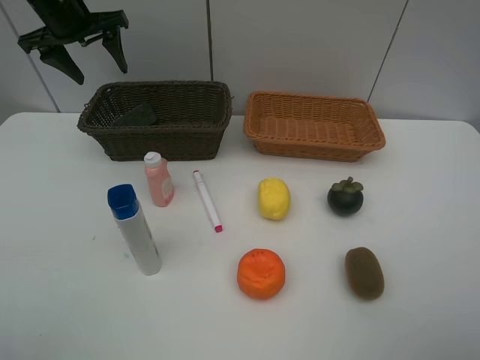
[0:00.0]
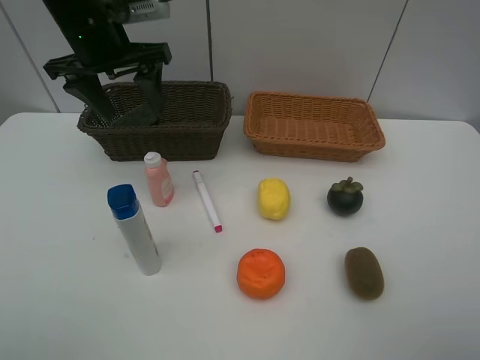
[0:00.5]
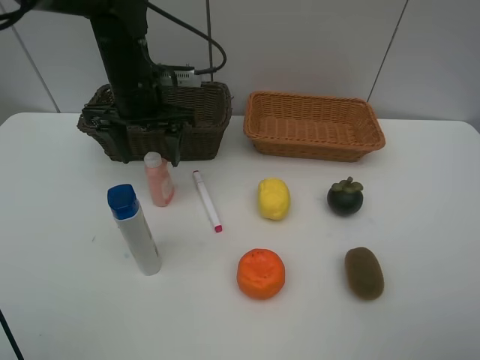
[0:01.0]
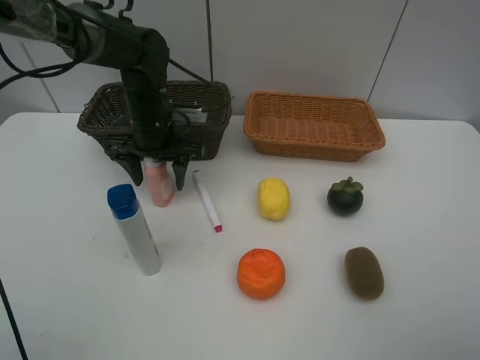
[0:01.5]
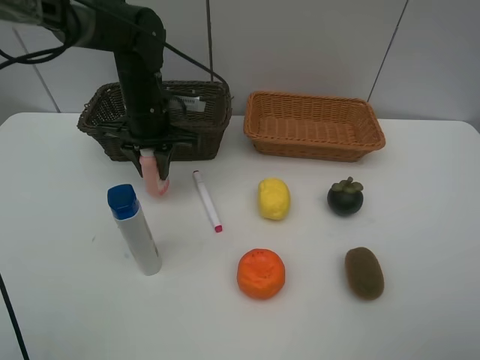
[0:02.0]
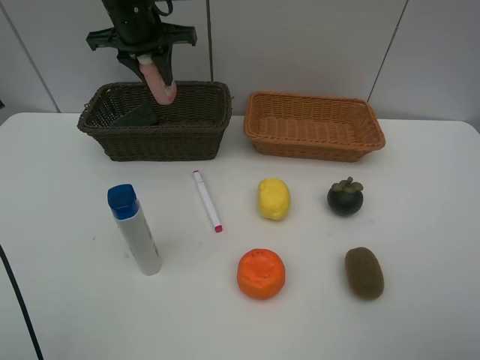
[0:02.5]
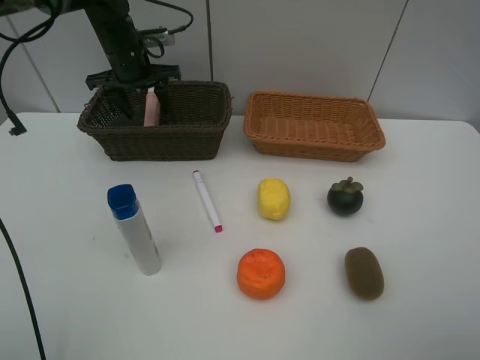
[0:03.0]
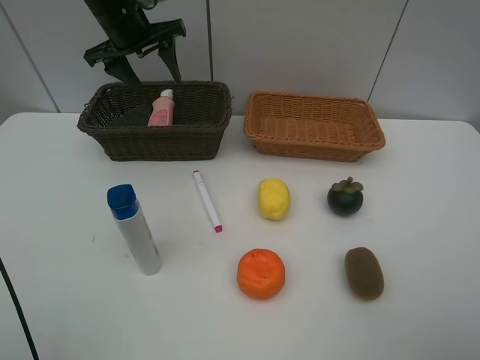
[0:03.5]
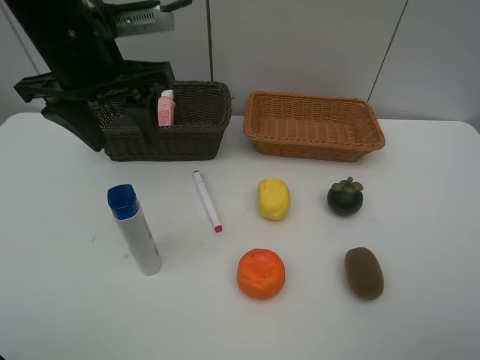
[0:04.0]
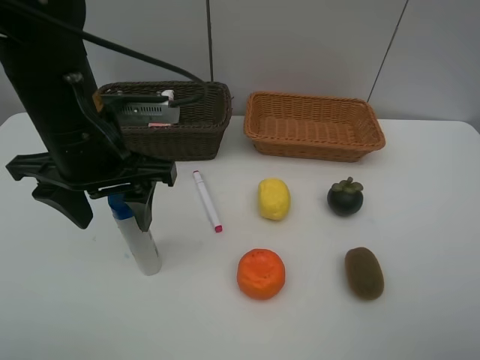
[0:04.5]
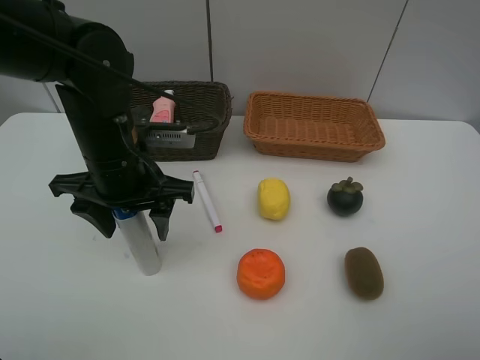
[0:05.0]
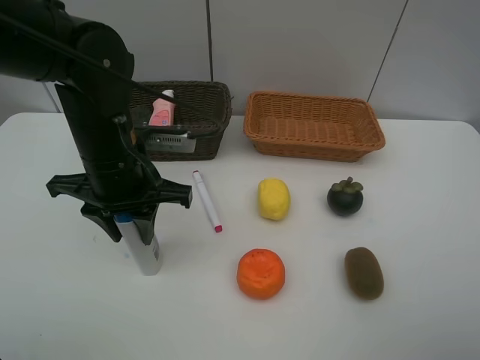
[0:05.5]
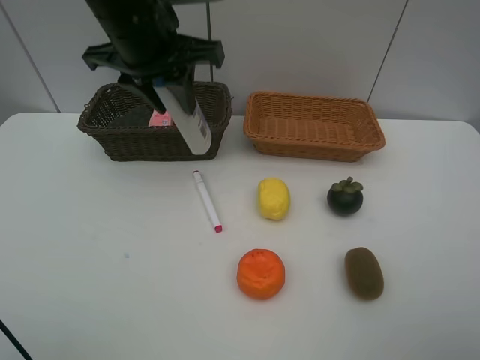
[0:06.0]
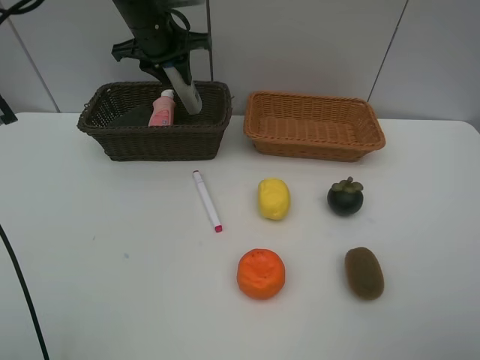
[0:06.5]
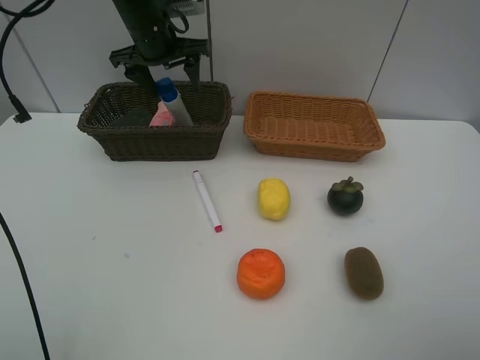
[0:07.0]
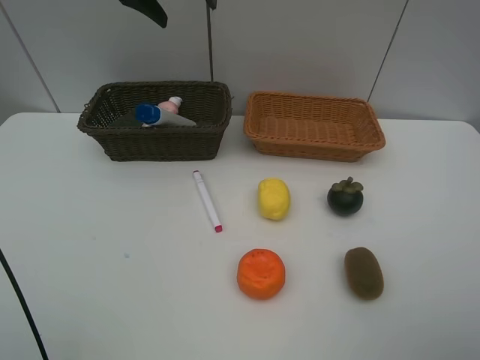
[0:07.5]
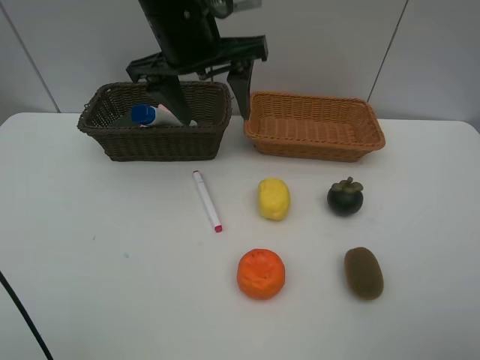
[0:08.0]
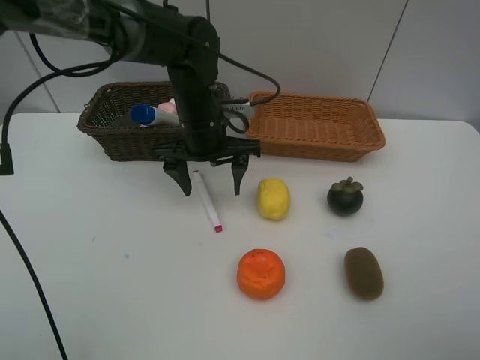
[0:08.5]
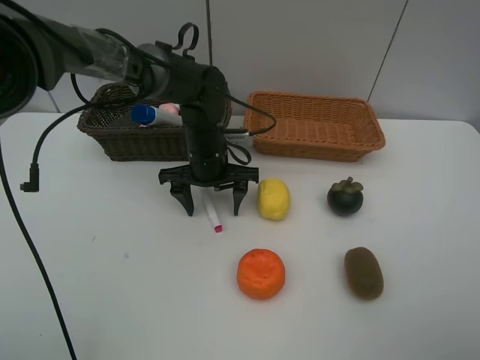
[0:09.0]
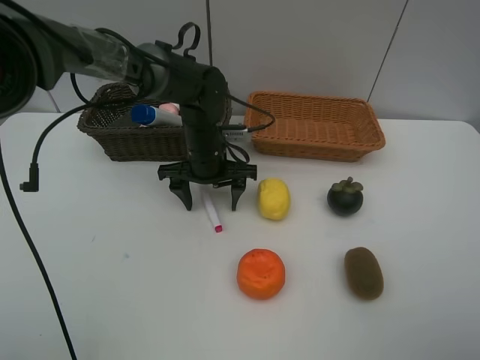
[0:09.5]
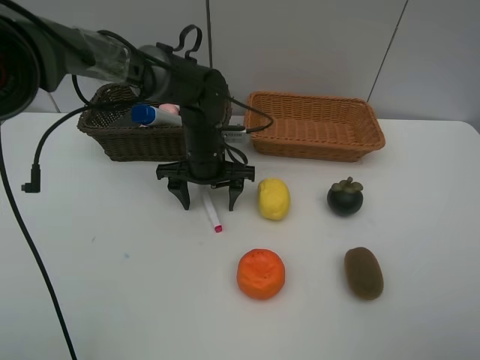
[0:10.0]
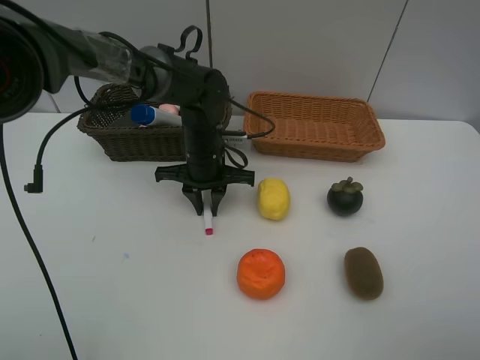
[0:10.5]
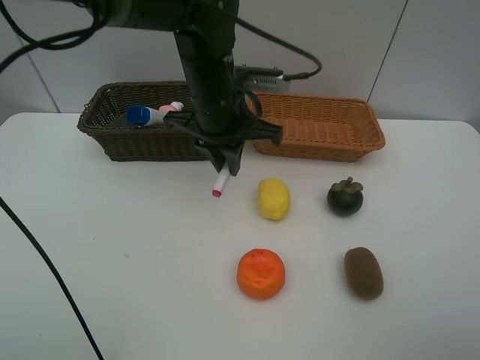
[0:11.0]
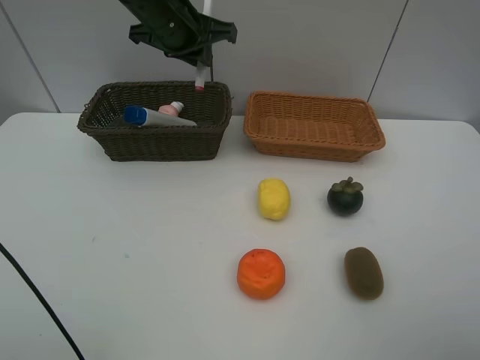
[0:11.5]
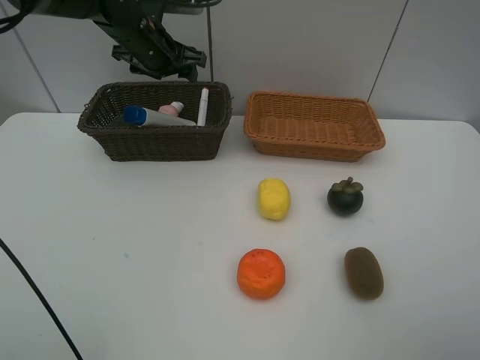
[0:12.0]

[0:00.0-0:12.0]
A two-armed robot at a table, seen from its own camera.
Task of the whole recording: Place multiple objects separately in different baskets.
Step, 0:00.0 to 0:02.0: Pick up the laundry detergent with left gripper.
Step, 0:02.5 to 0:03.0: Place the laundry detergent in the dark basket with left gripper.
Step, 0:03.5 to 0:05.5: Pick up the shampoo with left gripper.
Step, 0:06.0 to 0:07.0: Place the shampoo in the dark basket with left gripper.
Step, 0:07.5 to 0:10.5: Pick up pink marker pen with left gripper.
0:00.0 to 0:02.0: The left gripper travels to the right, downward and backward by some 20 cm, and closes.
0:02.0 to 0:04.0: The left gripper heads upward and backward, covering approximately 15 cm, and opens its fingers.
0:04.0 to 0:06.0: The left gripper goes downward and returns, approximately 10 cm each way, and closes up.
0:06.0 to 0:08.0: The left gripper travels forward and back again, approximately 15 cm each way, and opens.
0:08.0 to 0:10.0: The left gripper is displaced downward by roughly 20 cm.
0:10.0 to 0:12.0: The left gripper goes about 20 cm upward, to the left and forward, and closes, then opens again.

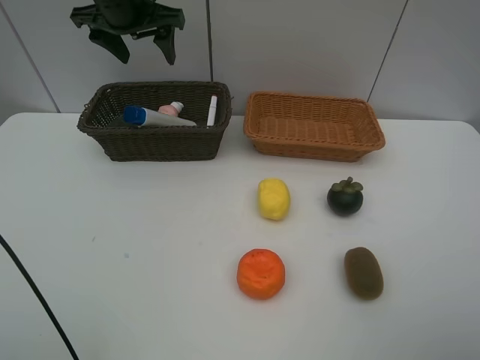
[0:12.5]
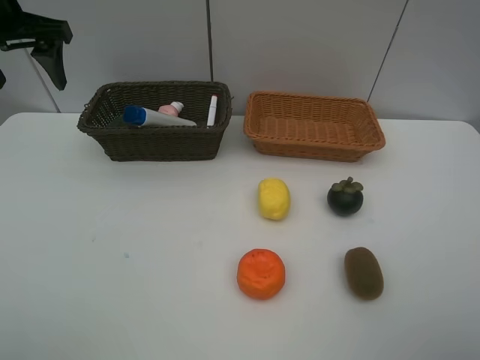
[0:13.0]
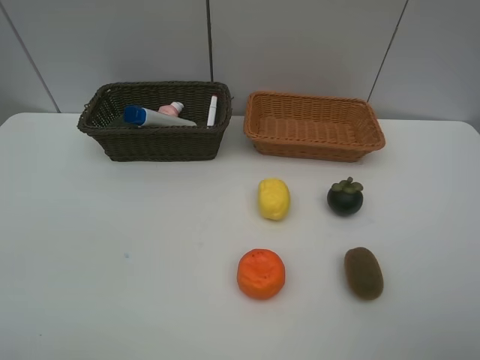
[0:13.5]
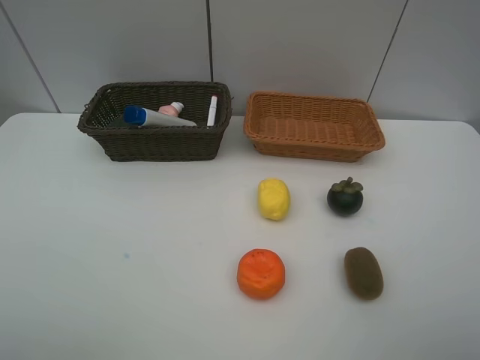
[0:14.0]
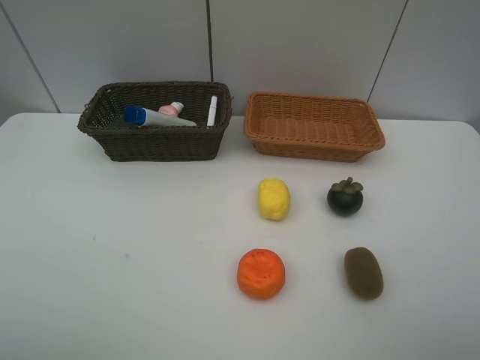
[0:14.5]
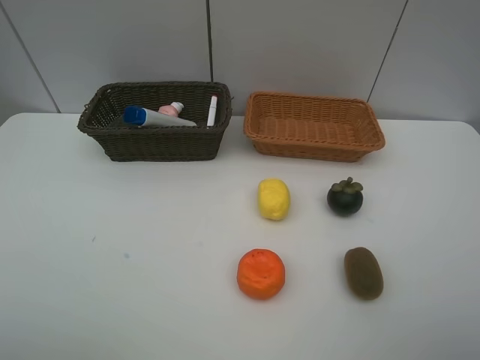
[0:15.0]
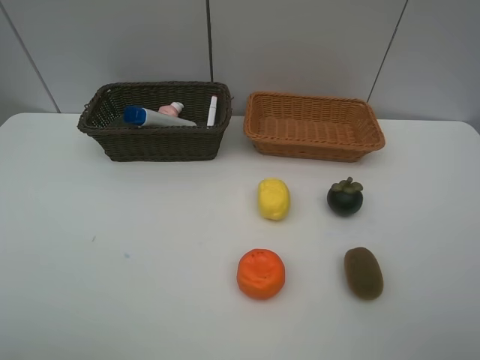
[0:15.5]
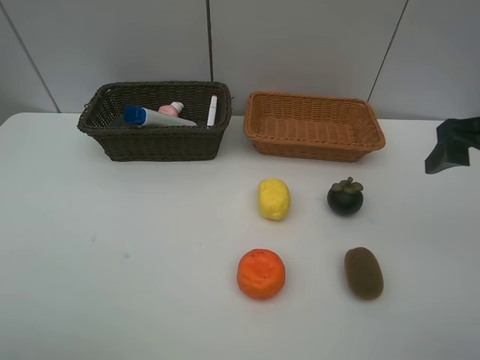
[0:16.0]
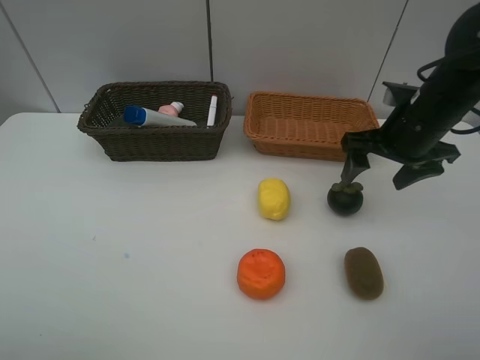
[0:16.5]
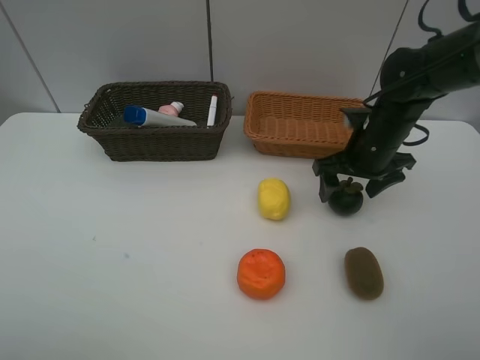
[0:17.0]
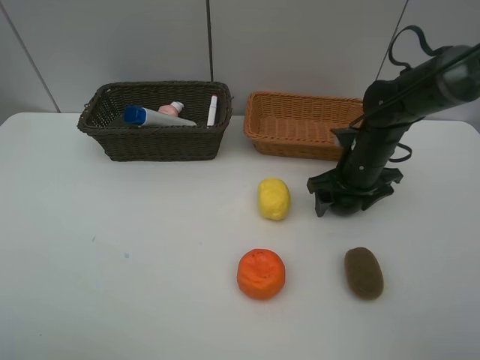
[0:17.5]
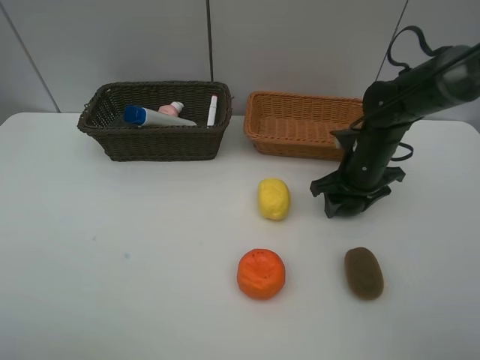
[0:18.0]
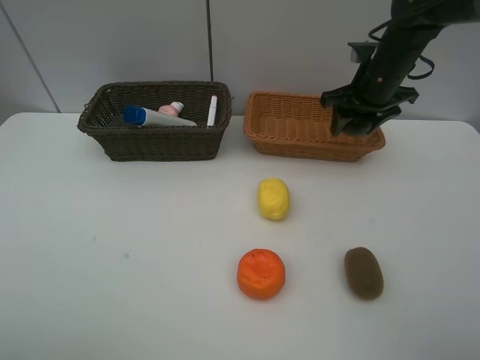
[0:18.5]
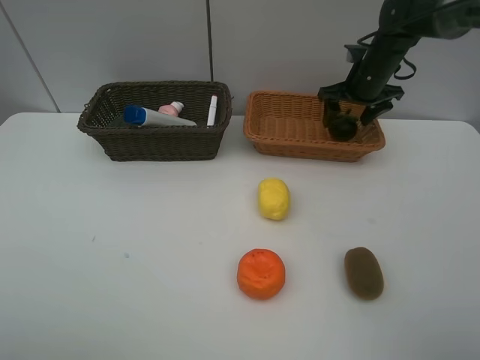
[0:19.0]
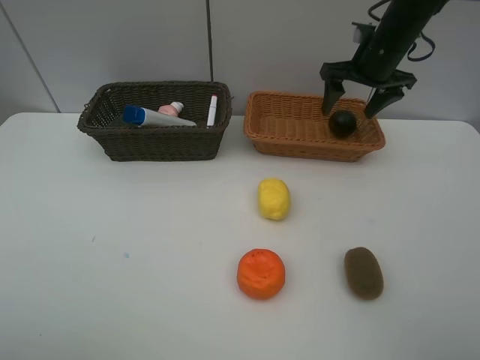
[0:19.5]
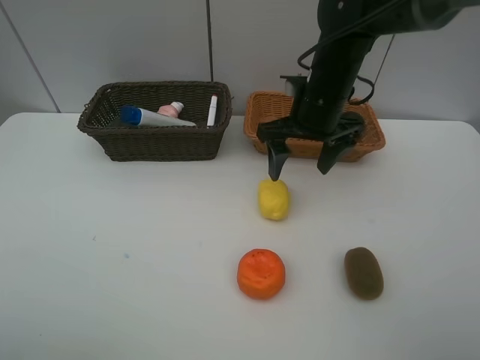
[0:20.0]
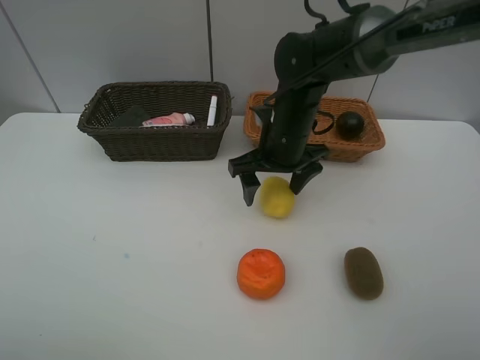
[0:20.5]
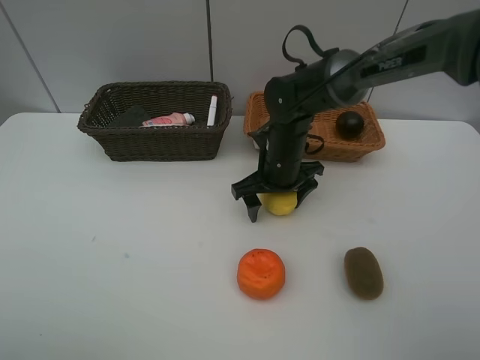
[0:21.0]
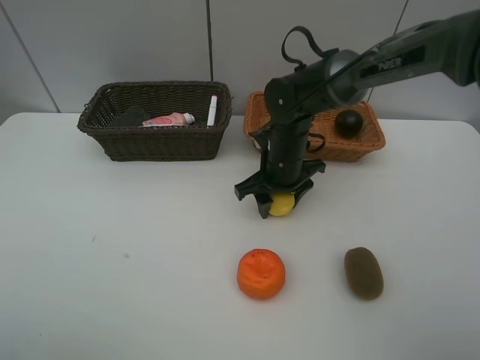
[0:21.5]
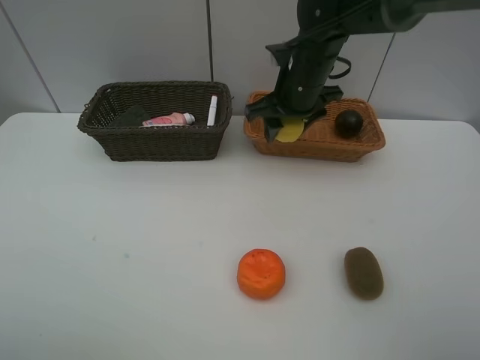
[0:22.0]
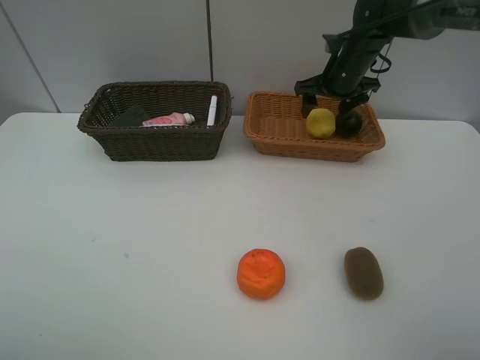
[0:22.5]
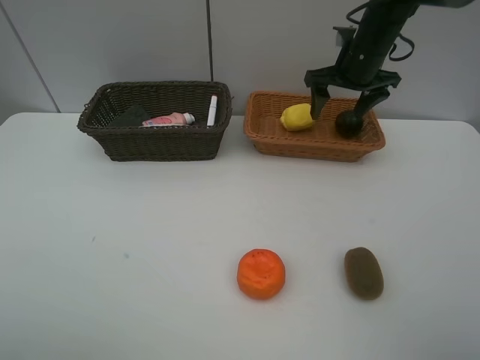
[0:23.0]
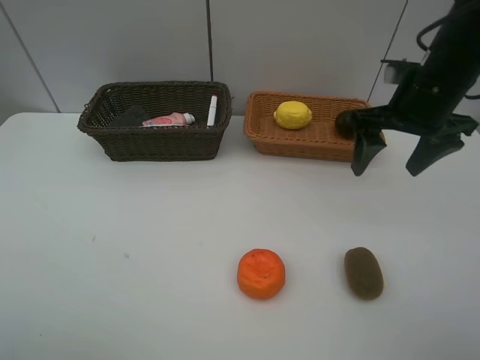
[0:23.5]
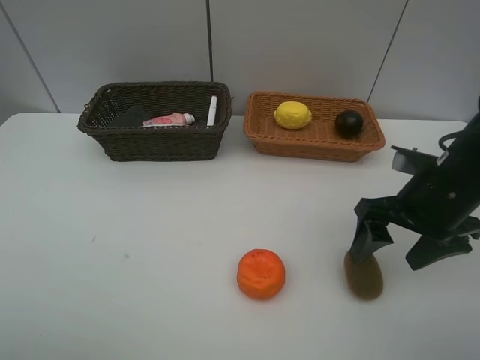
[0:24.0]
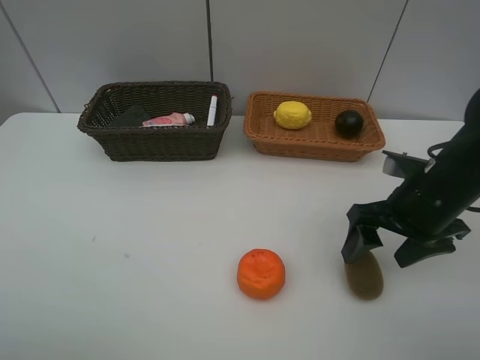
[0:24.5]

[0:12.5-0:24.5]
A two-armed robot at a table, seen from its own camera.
Task of the whole recording: Place multiple objects separately in different baskets.
Step, 0:12.5 to 0:18.0: Pick up the mangosteen with right gripper.
Step, 0:18.5 to 0:19.0: Place the mangosteen in the light basket with right gripper.
Step, 0:19.5 to 0:21.5: Pick up the lemon with right gripper.
Step, 0:22.0 to 0:22.5: Place the lemon in the light basket with right gripper.
0:12.5 to 0:14.5: The left gripper travels backward by some 50 cm.
0:14.5 to 0:16.5: The right gripper moves forward, approximately 30 cm.
0:16.5 to 0:18.5: The right gripper goes roughly 10 cm forward, and closes up.
0:18.5 to 0:20.5: The right gripper moves to the left and backward, about 20 cm, and opens up.
0:20.5 to 0:22.5: The right gripper moves forward and to the right, roughly 20 cm, and closes and opens again.
0:22.5 to 0:24.5: The right gripper shifts about 25 cm backward.

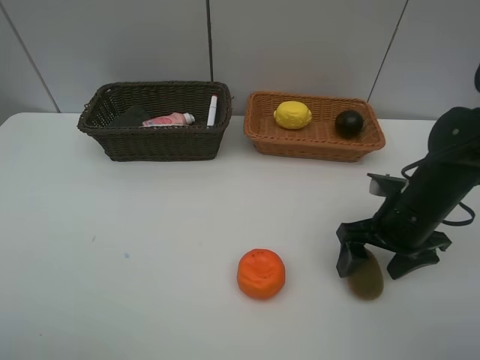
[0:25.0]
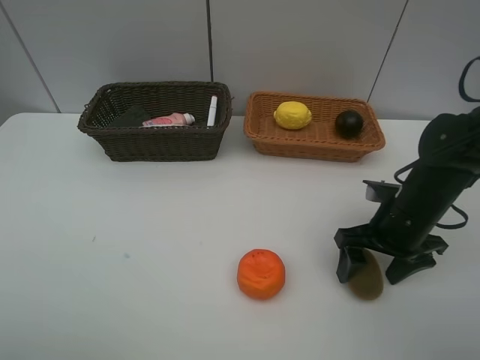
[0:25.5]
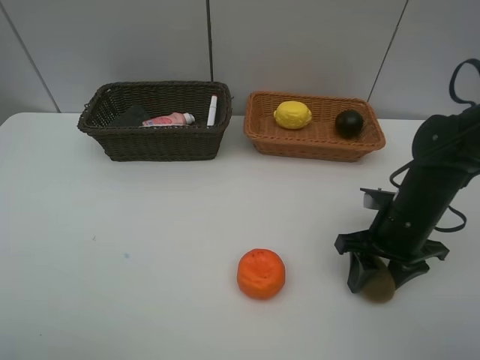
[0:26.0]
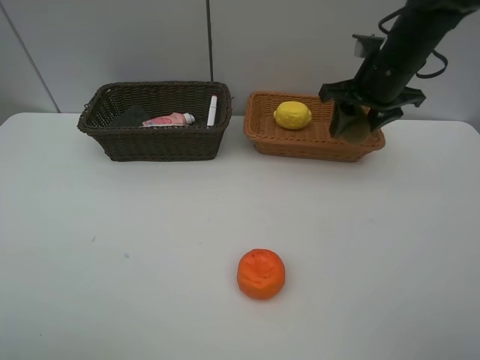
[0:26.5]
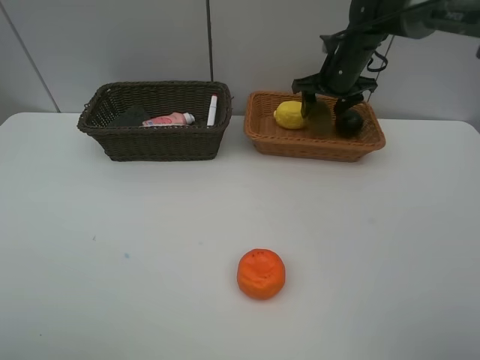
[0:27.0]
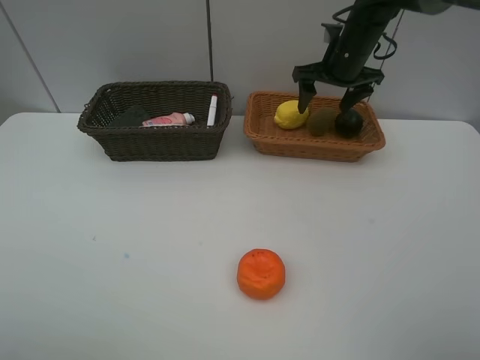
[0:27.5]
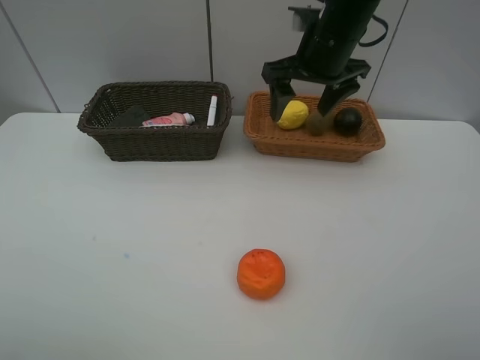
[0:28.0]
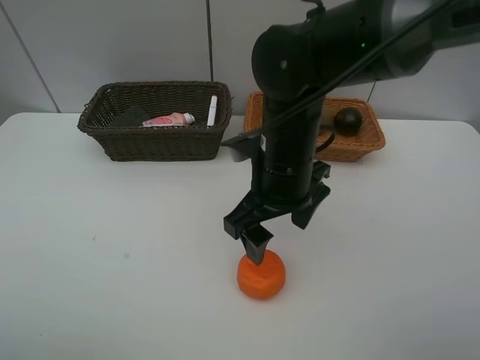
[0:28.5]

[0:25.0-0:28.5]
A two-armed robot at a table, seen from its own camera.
Task of the whole recording: Place multiple objects separately in different baskets.
Step, 0:26.5 to 0:27.5: Place the kiwi in the light basket with right gripper.
0:25.0 to 0:27.0: The right gripper heads forward, covering approximately 25 cm, and closes, then reopens.
0:27.0 to 0:28.5: The right gripper travels backward and to the left by about 30 cm.
